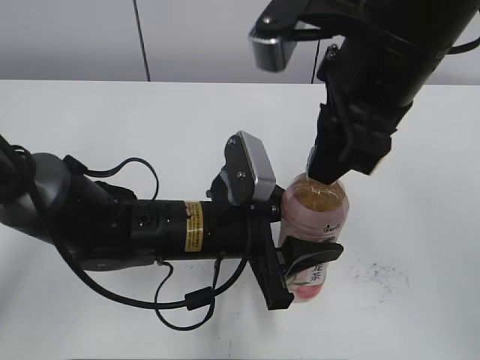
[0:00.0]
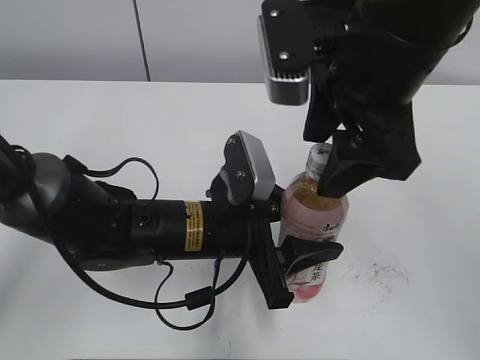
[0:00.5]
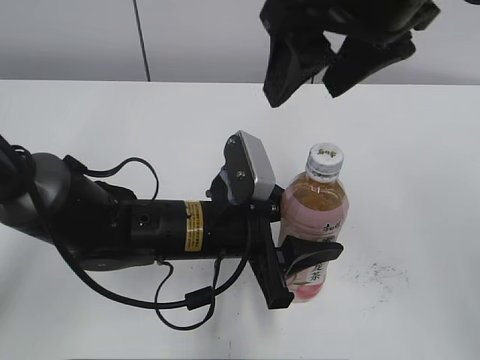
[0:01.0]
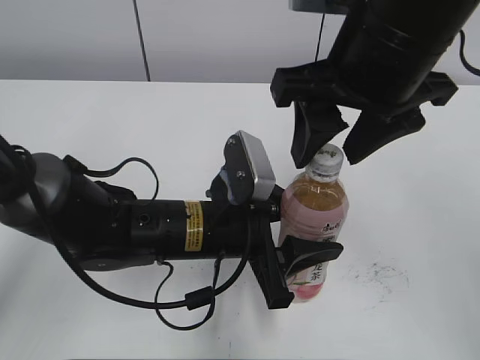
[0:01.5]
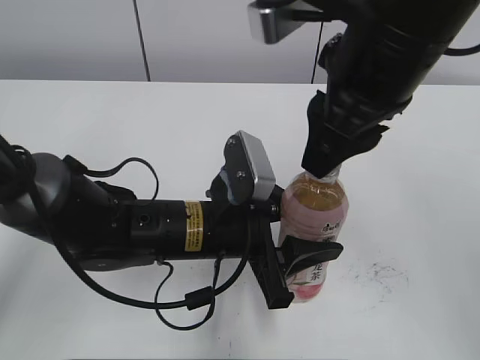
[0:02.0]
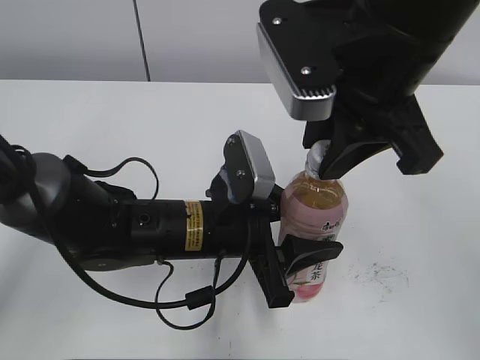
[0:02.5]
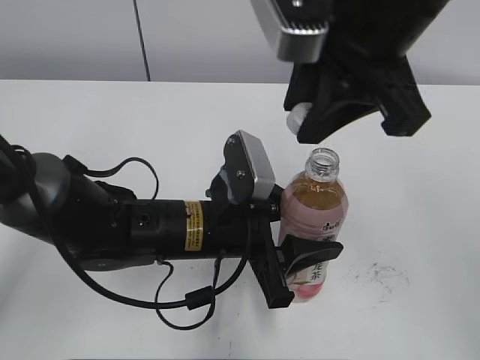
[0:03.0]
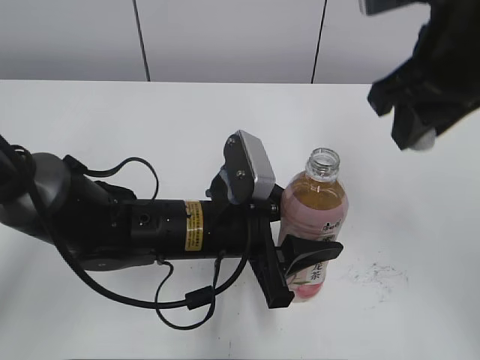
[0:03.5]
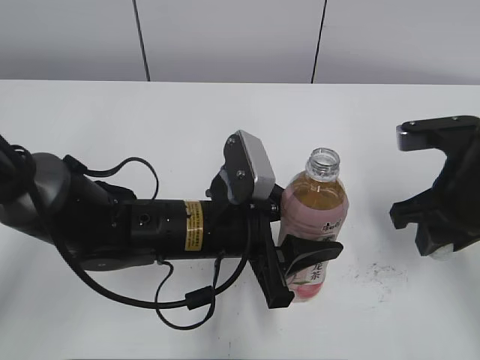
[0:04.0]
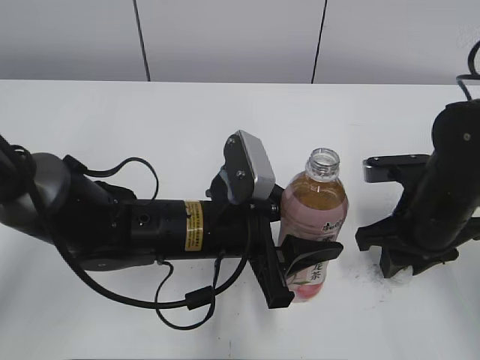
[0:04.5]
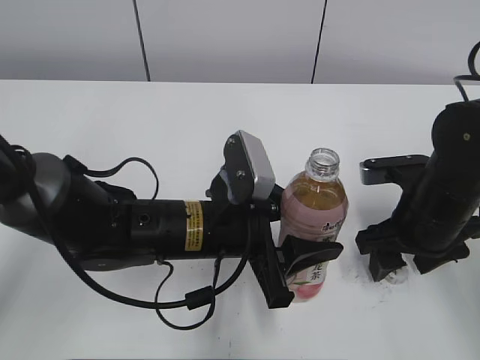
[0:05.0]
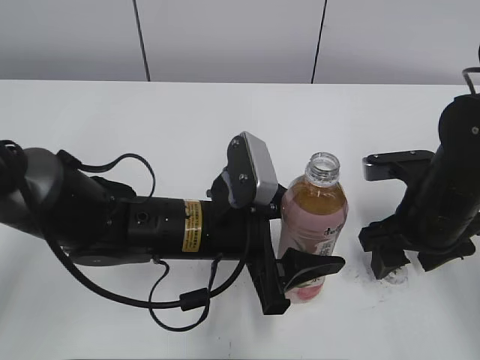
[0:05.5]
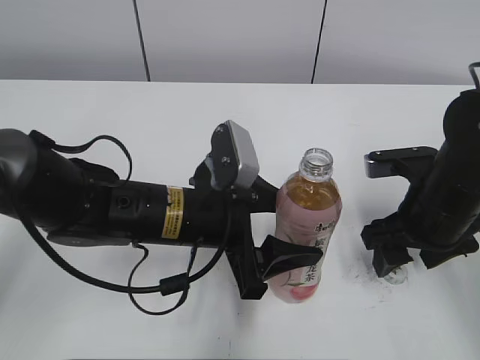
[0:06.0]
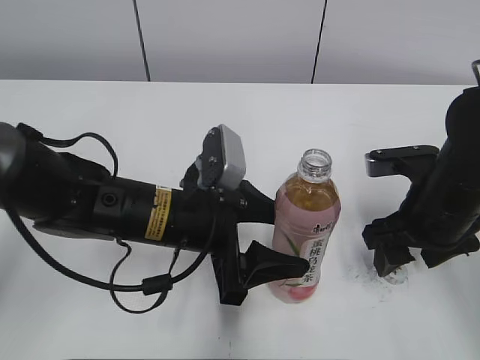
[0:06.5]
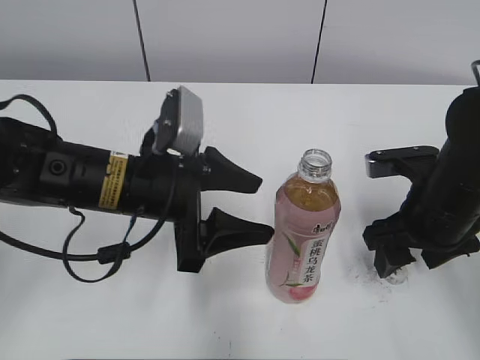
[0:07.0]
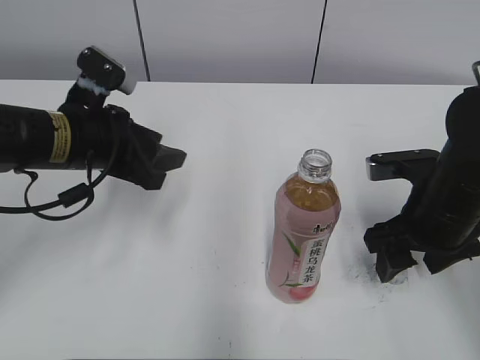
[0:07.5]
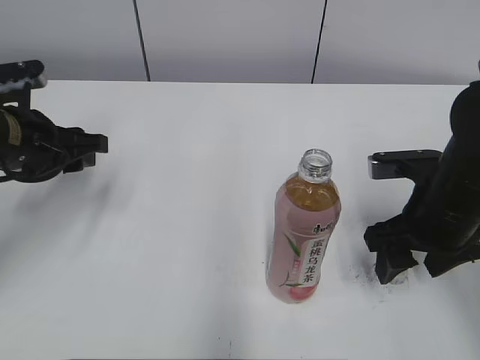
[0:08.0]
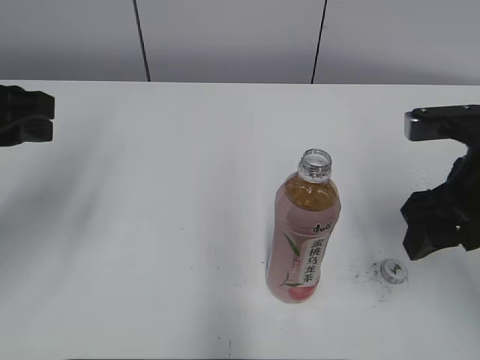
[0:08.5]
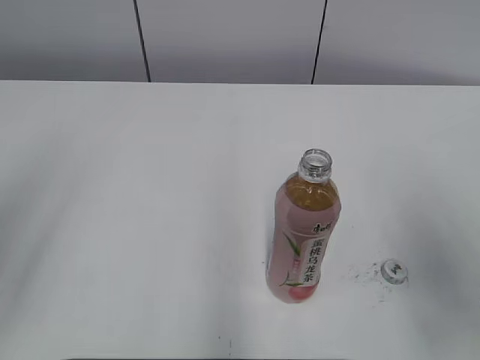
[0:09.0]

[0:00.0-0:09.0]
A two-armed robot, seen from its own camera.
Step, 0:03.0 to 0:04.5: Place the bottle cap on the right.
0:00.0 to 0:02.0: The right gripper opens and closes again.
0:02.0 to 0:04.5: The right gripper is displaced downward and to the right by approximately 20 cm.
0:04.5 to 0:07.0: The right gripper opens up. The left gripper travels to the left by roughly 5 cm, and opens.
0:07.0 to 0:09.0: The left gripper moves to the left, upward and backward, about 30 cm, and closes its fingers; the right gripper travels backward and upward by about 15 cm.
